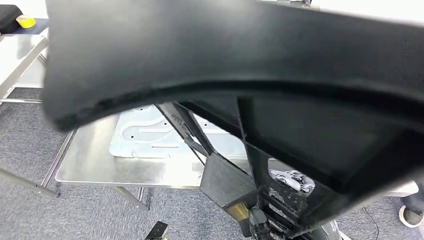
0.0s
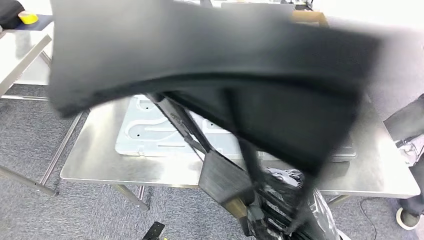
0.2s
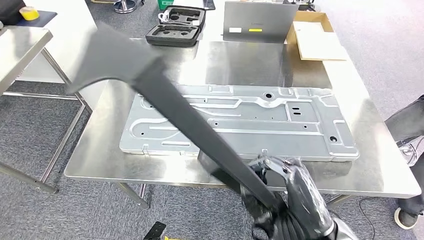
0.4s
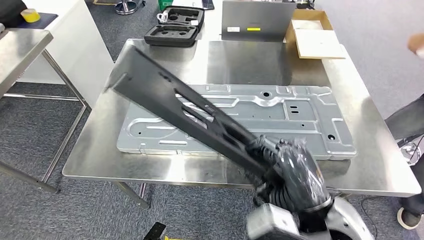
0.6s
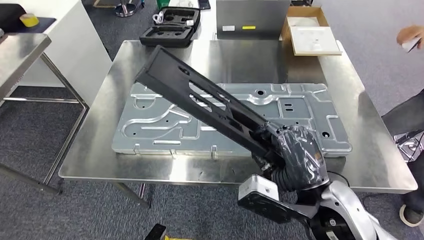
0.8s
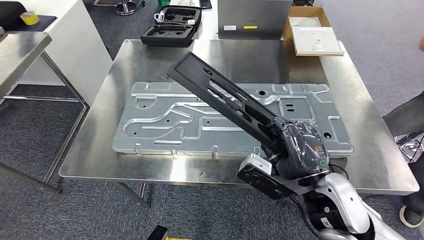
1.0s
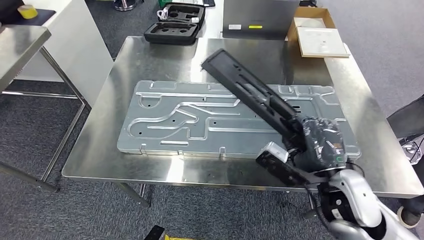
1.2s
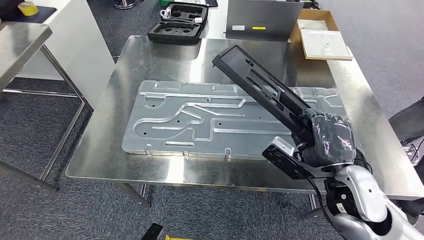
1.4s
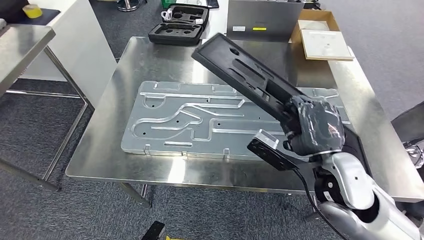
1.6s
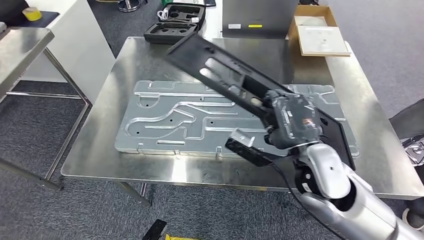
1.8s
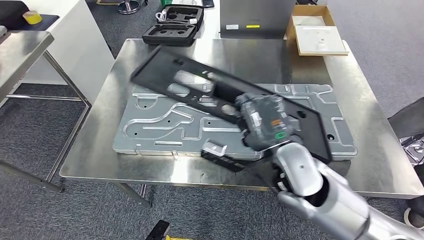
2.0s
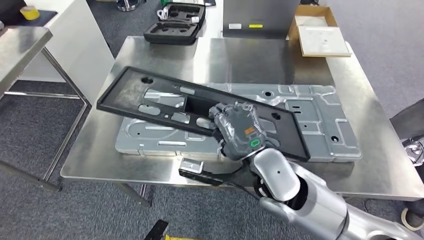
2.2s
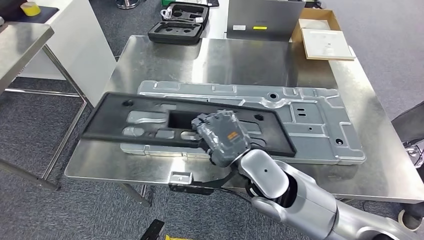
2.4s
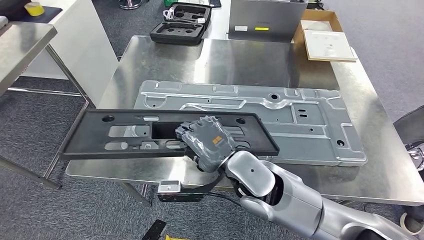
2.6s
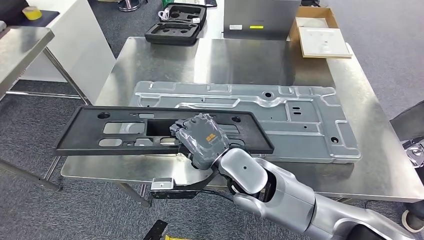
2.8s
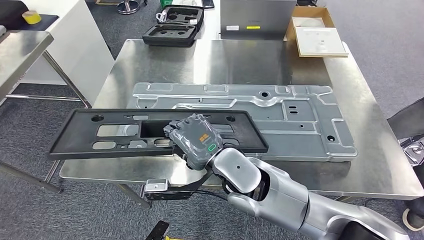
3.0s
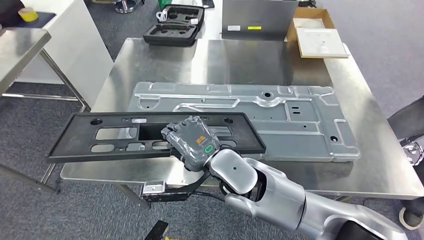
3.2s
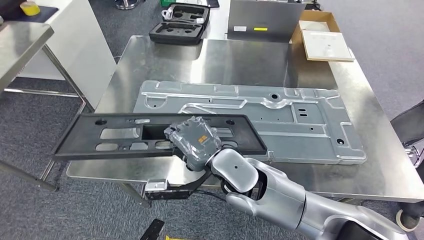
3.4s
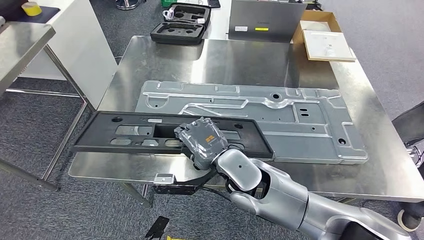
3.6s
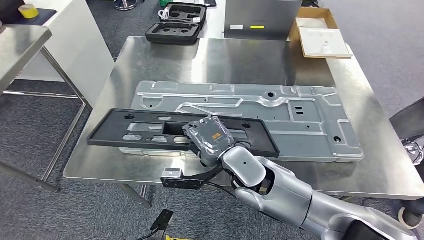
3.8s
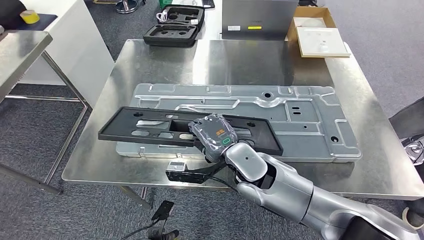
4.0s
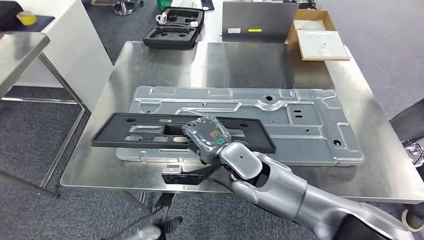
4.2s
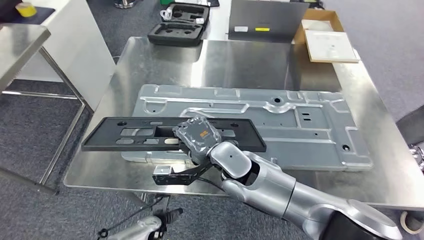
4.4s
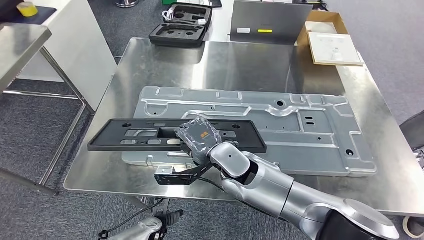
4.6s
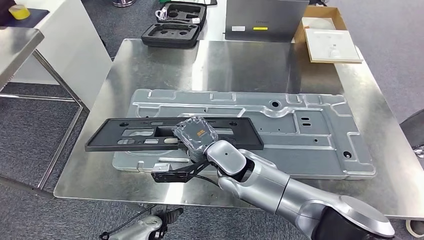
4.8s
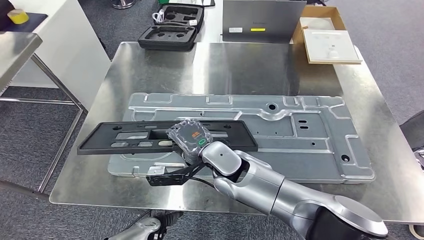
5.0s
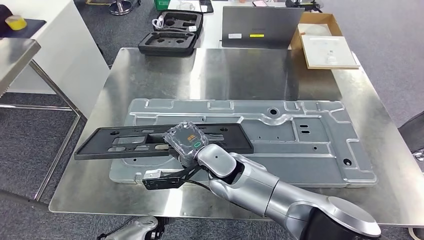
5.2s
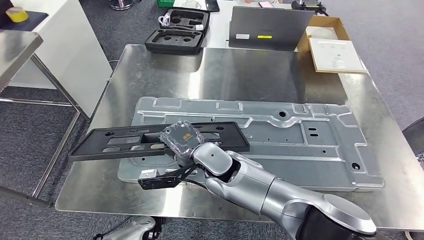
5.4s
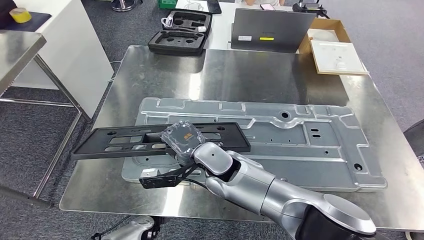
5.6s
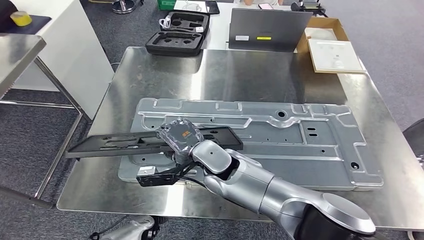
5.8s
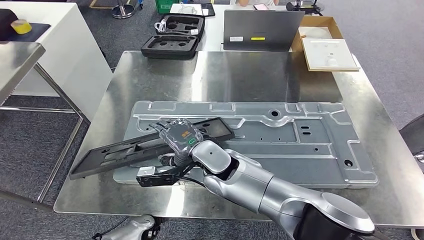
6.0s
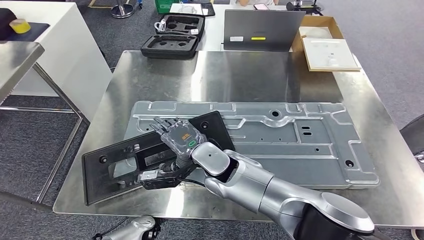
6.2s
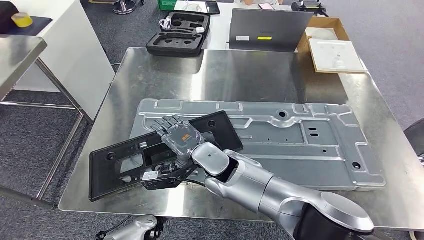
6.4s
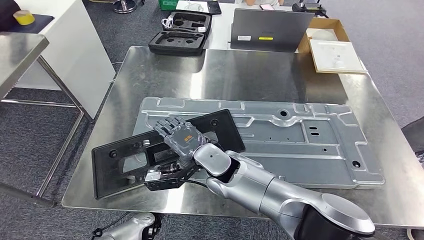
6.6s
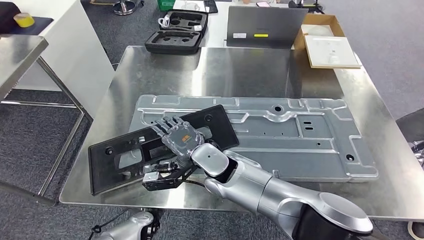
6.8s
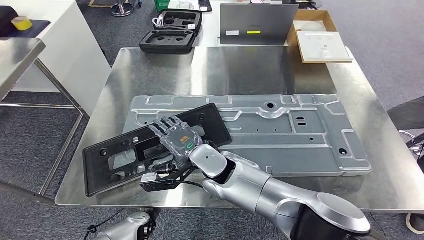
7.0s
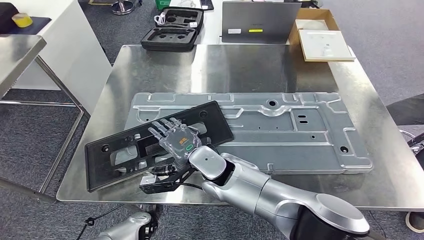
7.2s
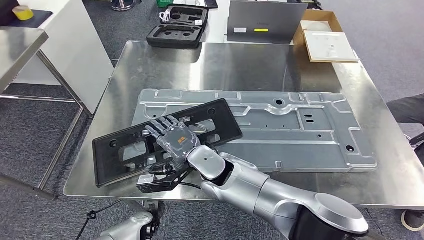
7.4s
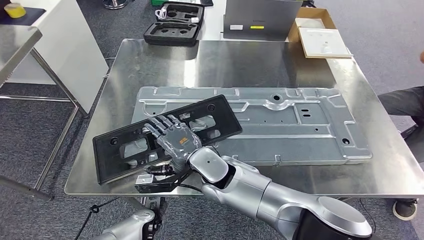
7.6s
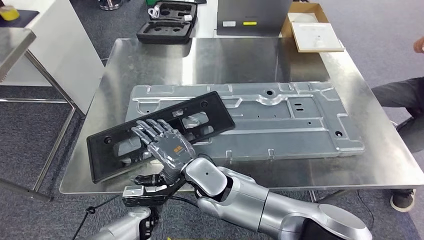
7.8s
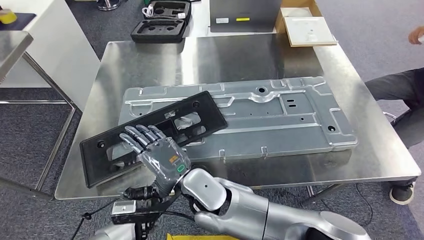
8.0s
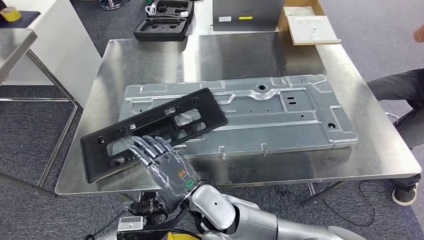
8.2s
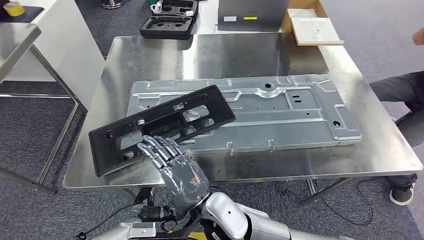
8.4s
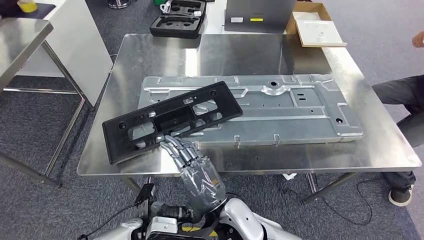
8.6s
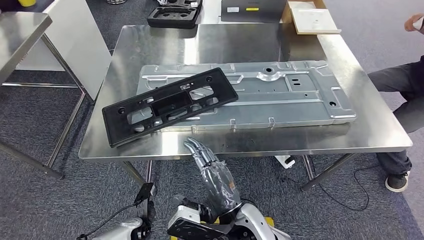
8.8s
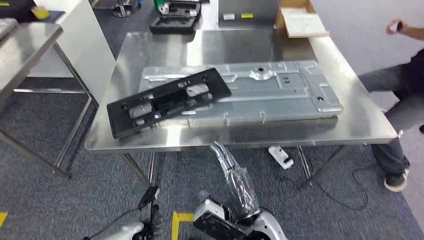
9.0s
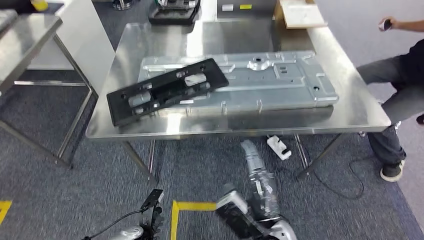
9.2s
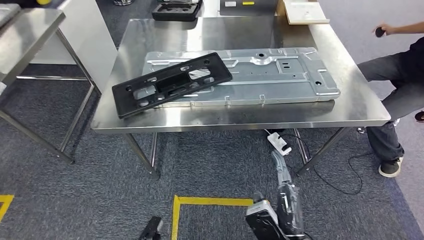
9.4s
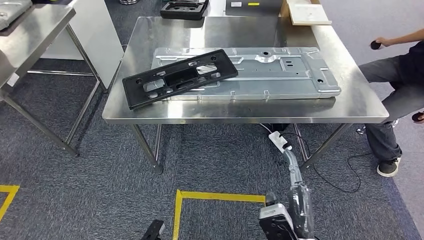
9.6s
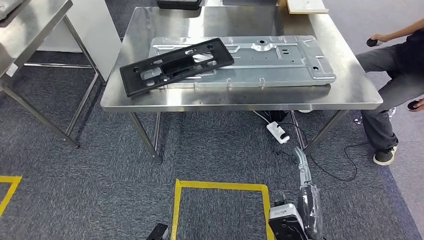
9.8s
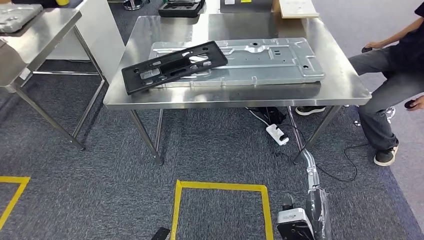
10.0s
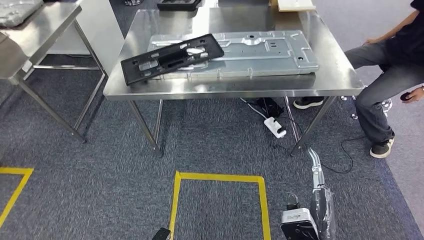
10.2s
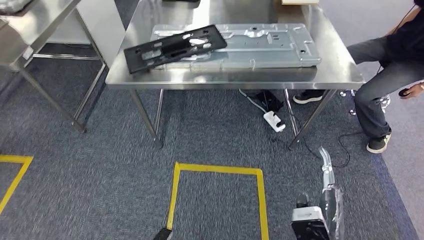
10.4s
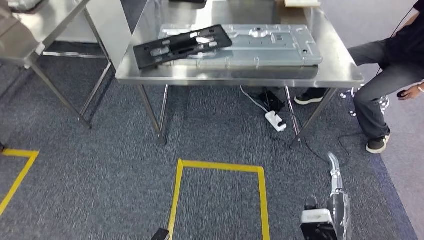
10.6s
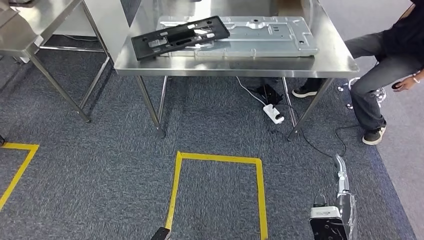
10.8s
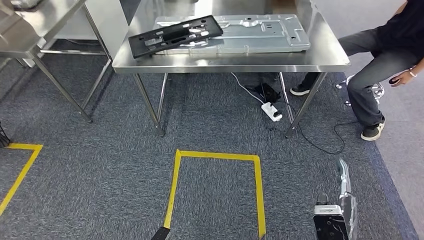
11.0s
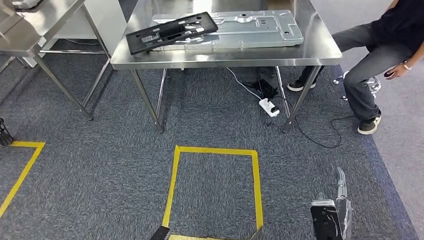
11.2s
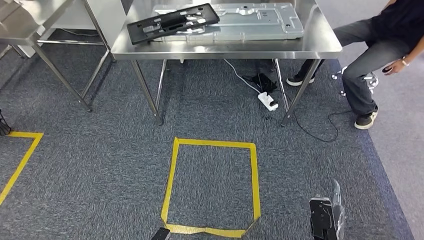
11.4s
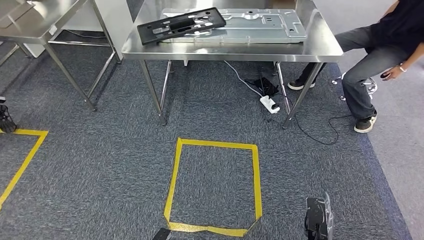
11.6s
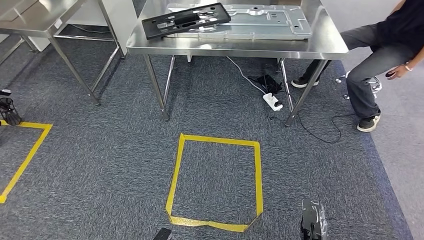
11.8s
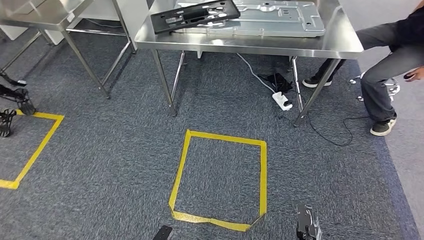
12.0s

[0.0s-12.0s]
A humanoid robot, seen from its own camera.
Step, 0.0s to 6.6s: Insert the large material into the corresponding hole on the workbench.

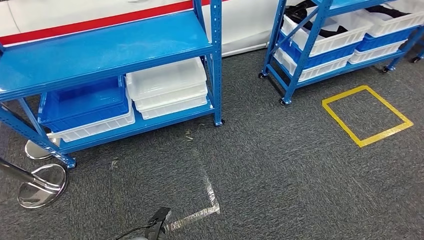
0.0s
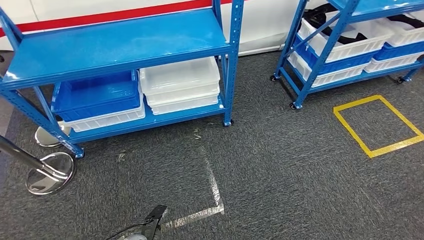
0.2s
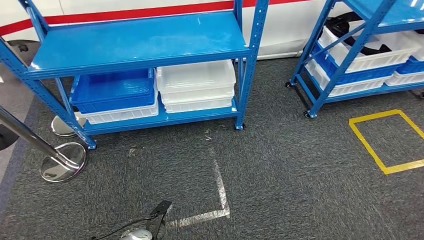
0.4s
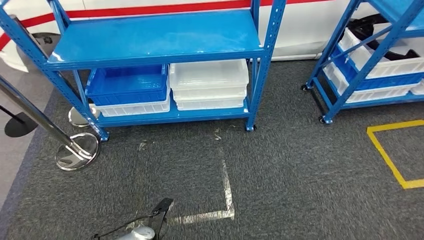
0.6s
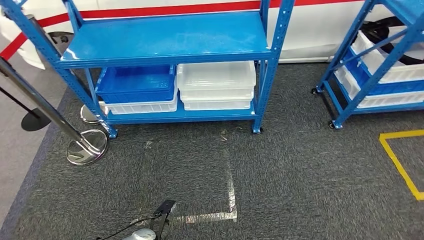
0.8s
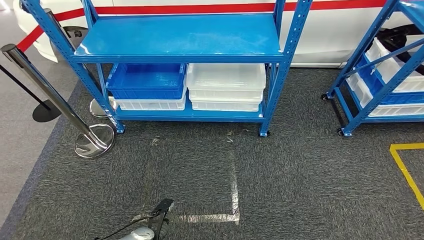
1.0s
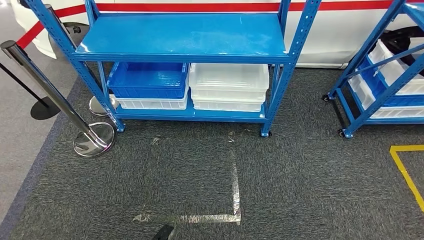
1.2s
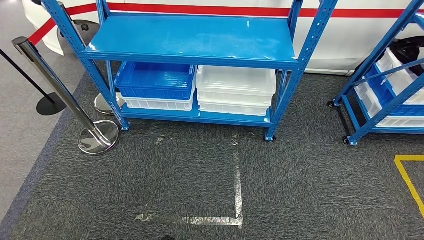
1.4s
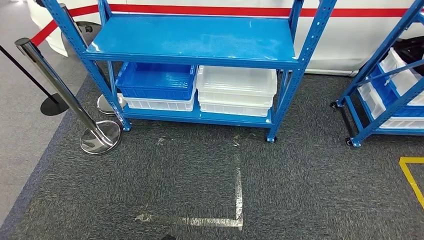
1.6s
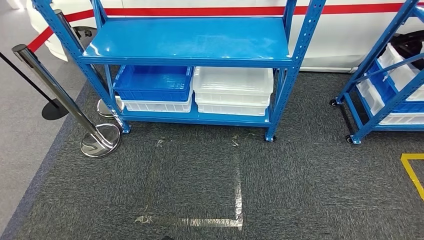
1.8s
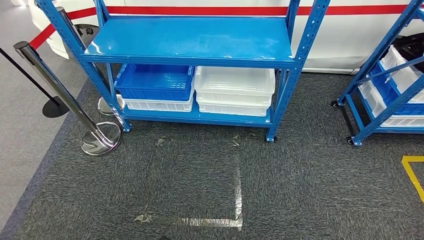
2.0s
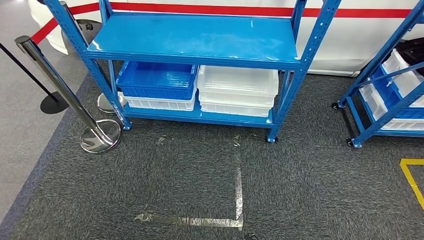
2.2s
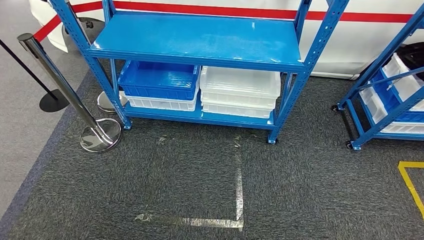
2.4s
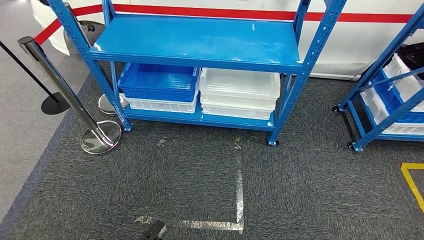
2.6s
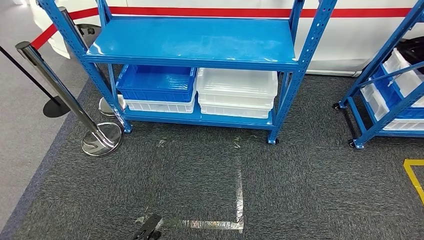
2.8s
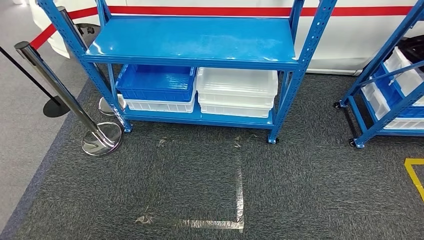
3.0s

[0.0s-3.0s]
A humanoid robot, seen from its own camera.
Step, 0.0s to 3.0s: Move to the initial position of the shelf.
1.6s to 3.0s: The right hand travels backward and back again, about 5 cm each way; the left hand goes forward and backward, about 10 cm each way, reversing 2 times.
